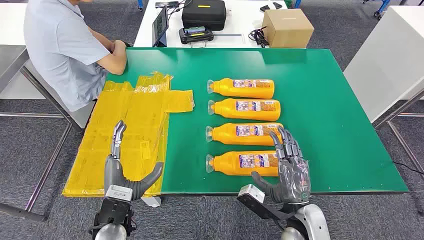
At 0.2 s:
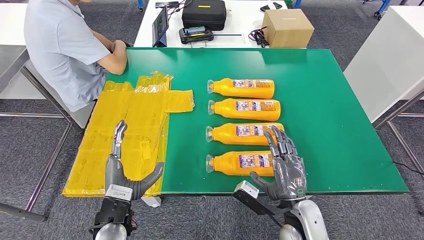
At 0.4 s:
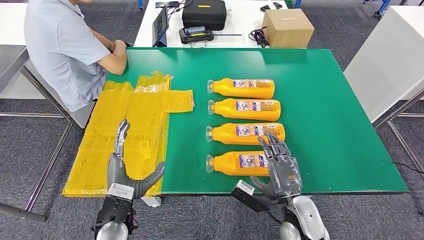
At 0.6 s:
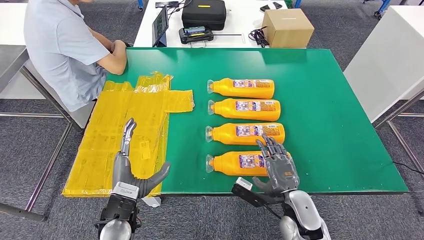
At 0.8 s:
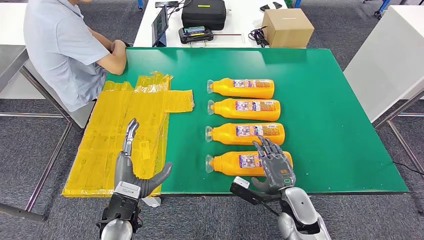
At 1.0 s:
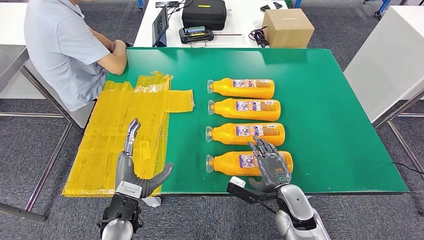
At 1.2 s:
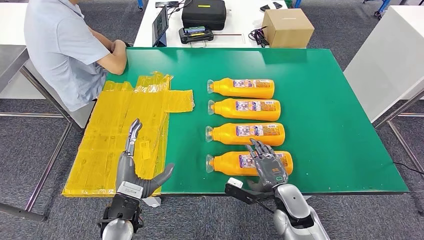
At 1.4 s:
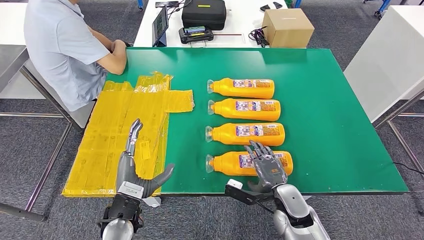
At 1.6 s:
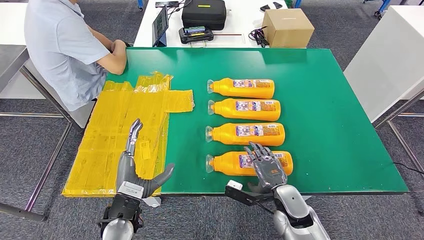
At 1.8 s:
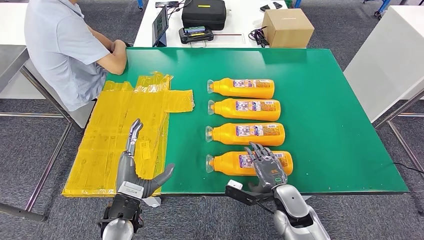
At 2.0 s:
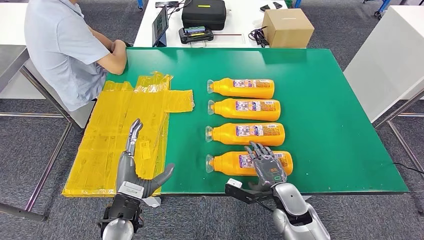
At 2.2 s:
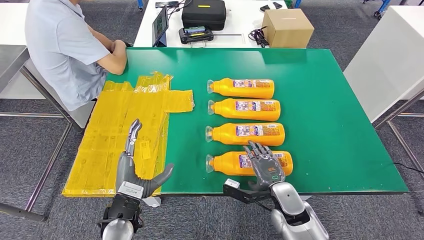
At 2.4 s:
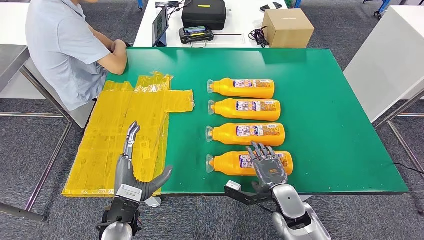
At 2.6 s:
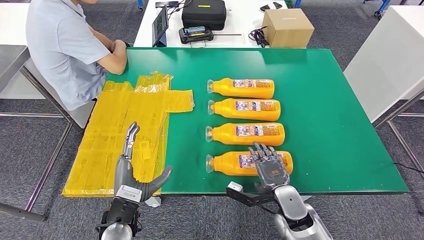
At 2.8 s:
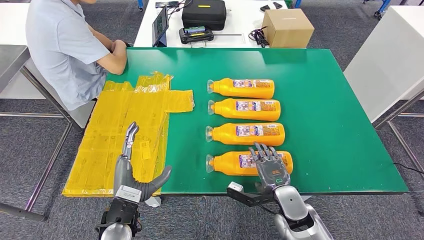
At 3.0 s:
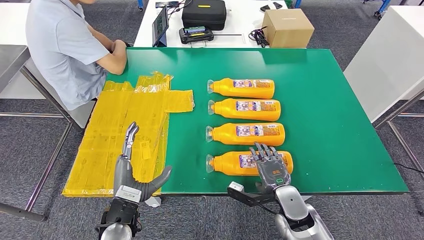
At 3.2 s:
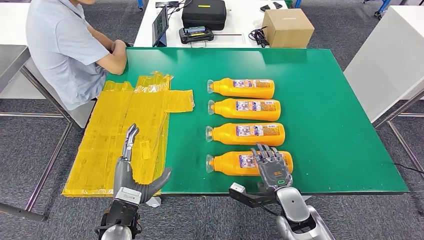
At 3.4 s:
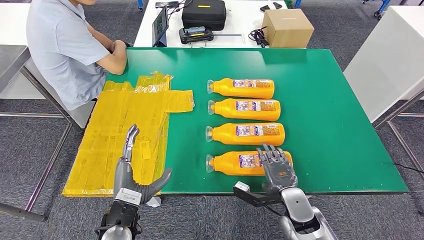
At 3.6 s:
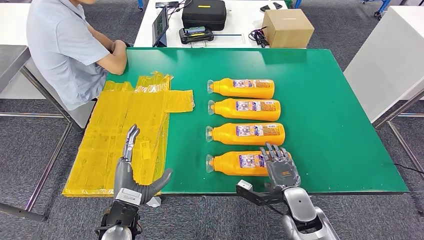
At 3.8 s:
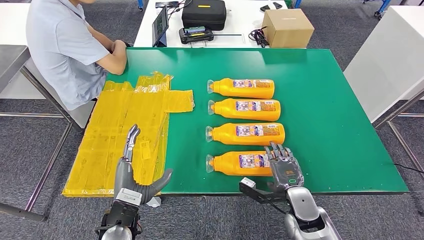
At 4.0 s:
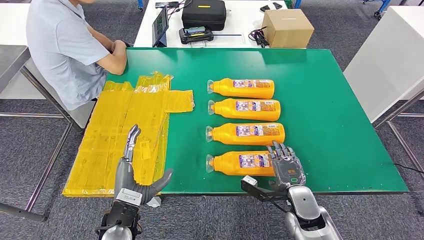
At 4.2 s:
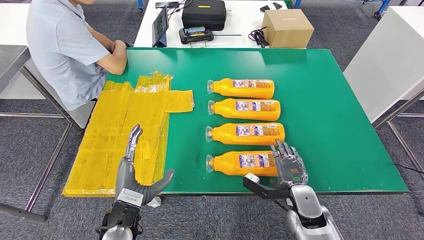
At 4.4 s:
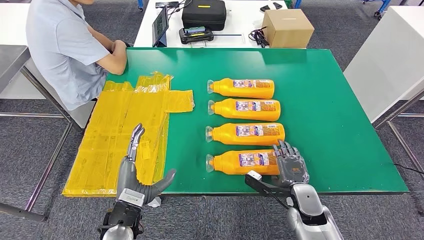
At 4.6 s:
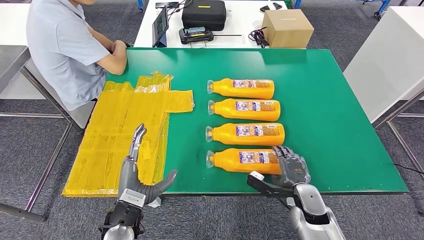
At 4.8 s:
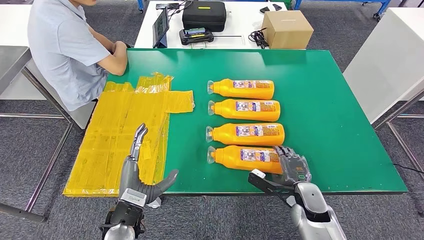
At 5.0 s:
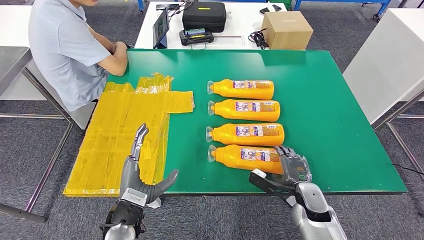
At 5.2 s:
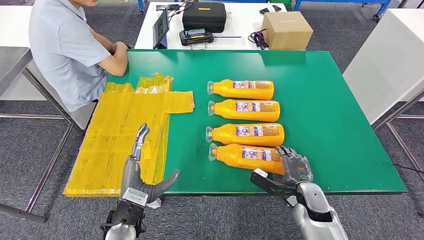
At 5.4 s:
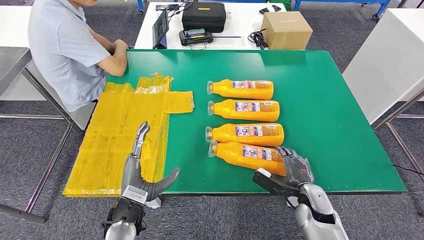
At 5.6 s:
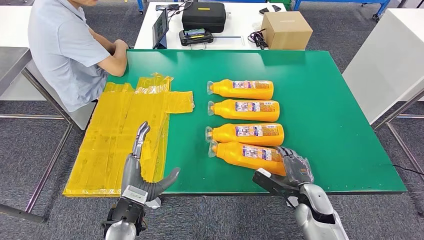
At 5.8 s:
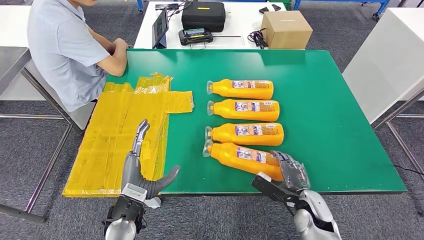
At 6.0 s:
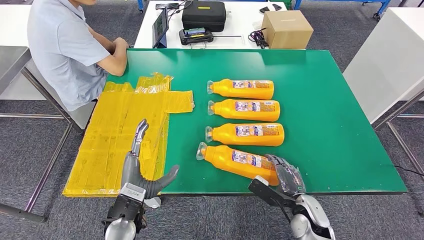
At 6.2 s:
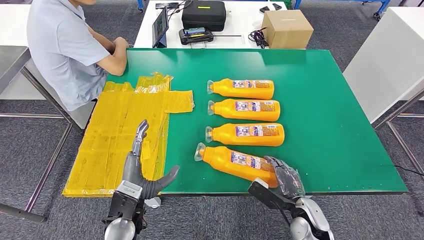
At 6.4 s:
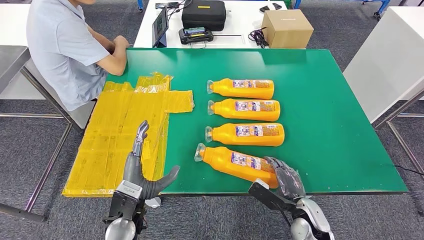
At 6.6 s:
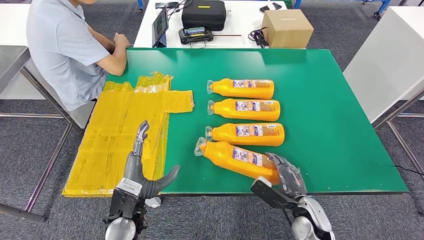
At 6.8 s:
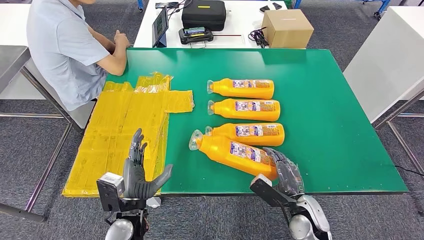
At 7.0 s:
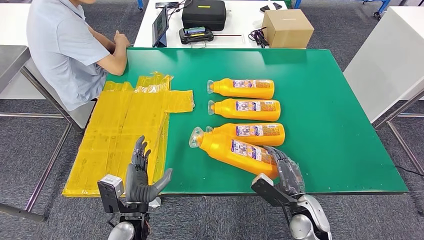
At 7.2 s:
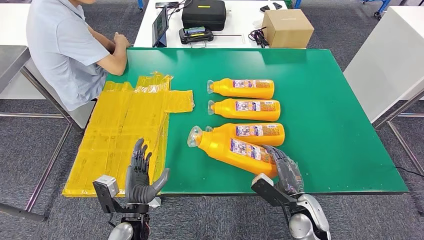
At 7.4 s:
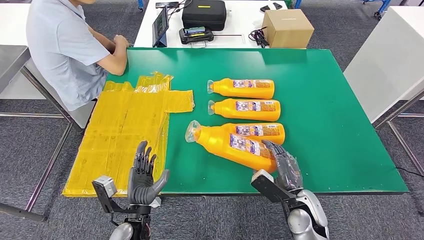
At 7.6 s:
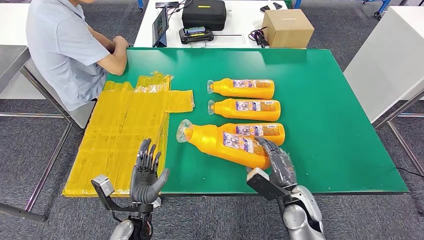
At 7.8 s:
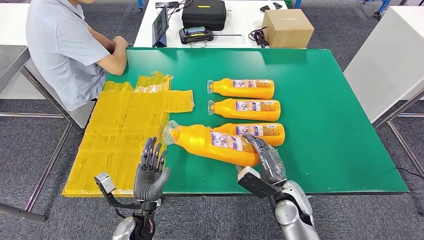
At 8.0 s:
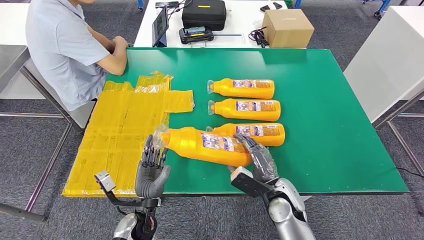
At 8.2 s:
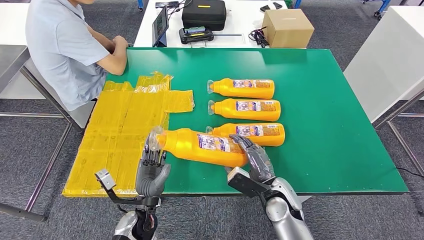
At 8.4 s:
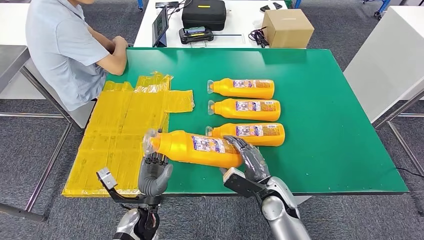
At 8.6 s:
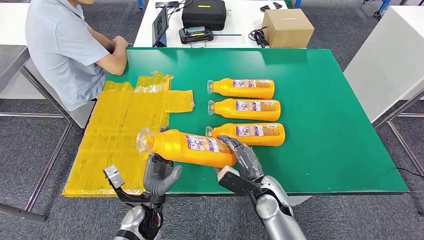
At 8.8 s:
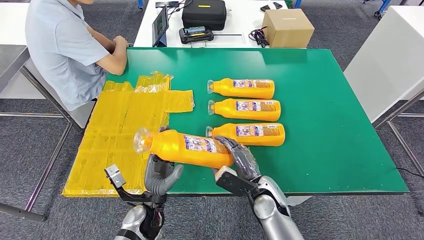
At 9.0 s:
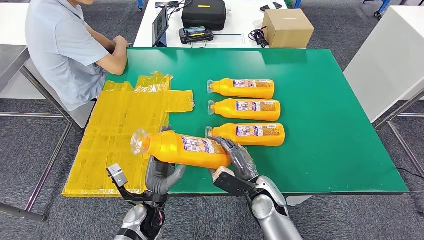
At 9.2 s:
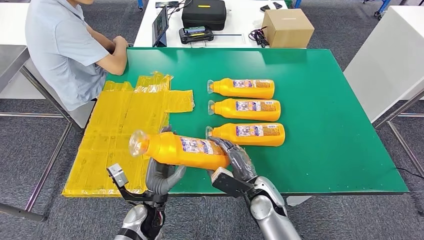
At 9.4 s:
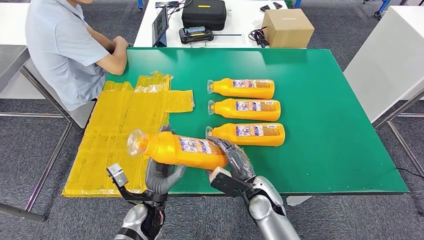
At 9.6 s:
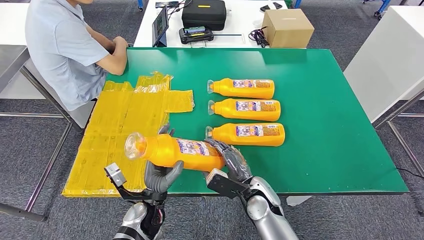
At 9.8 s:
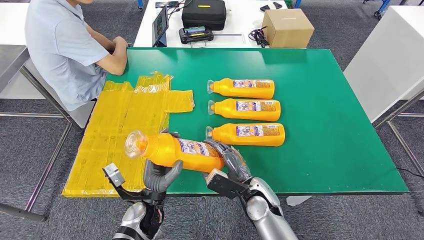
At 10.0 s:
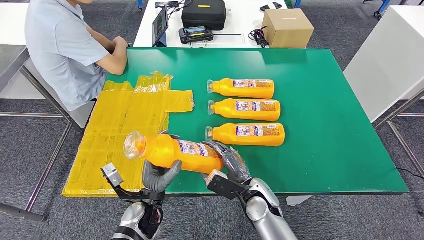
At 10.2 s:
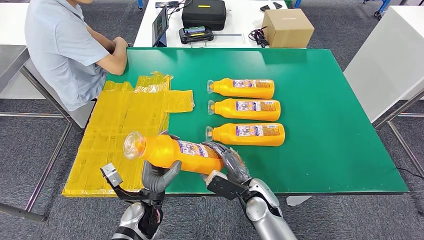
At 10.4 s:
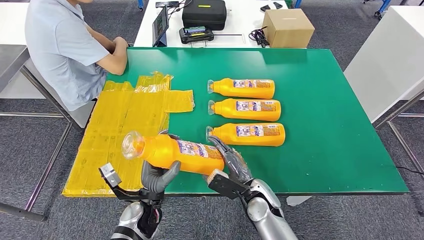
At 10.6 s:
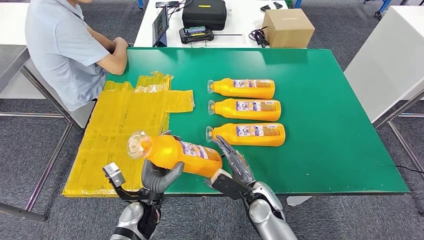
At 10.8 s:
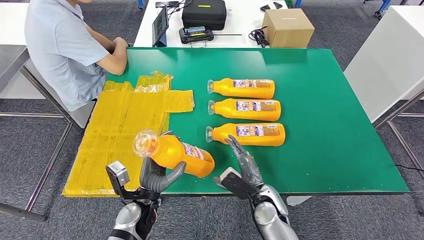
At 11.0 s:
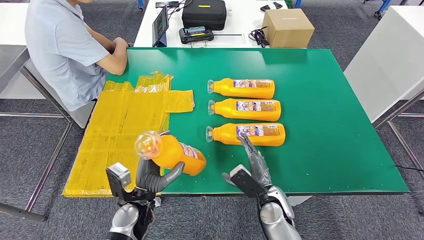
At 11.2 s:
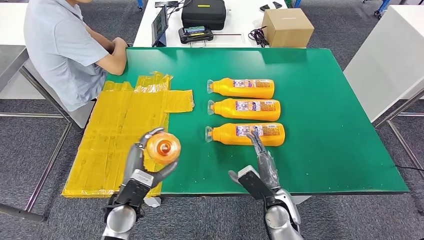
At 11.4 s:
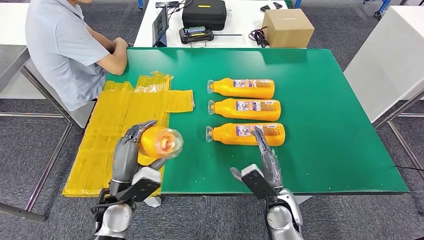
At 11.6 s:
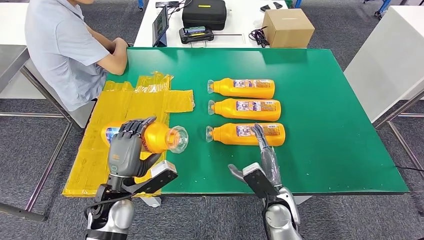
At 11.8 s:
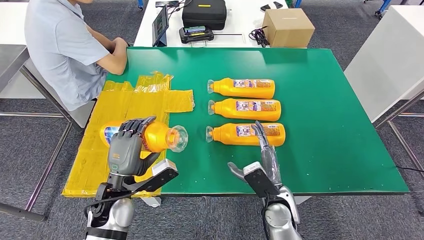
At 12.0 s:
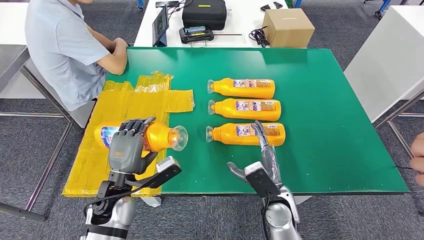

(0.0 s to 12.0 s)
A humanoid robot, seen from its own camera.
Step, 0.0 s - 8.4 s: Take the bottle from the table.
1.6 s - 4.4 s: The hands make only small movements.
6.0 s - 7.6 s: The left hand shifts about 5 cm downward. Meanwhile the right hand shifts by some 5 cm.
7.6 s - 9.0 s: The right hand moves to the left, roughly 10 cm.
9.0 s - 10.4 s: The hands stay close to where they were, moving slightly.
10.4 s - 12.0 s: The right hand shifts by roughly 5 cm; the left hand is displaced upward and to the left by about 10 cm.

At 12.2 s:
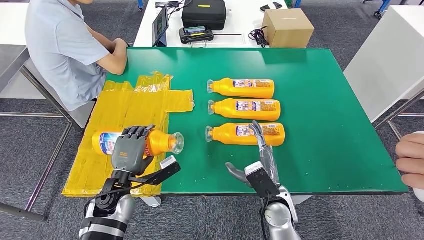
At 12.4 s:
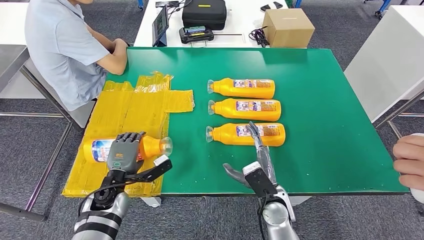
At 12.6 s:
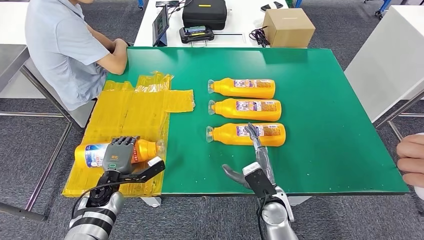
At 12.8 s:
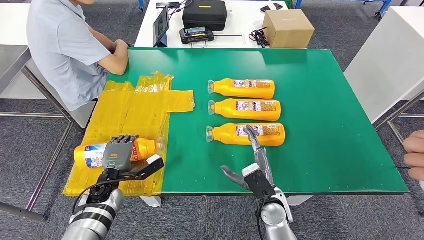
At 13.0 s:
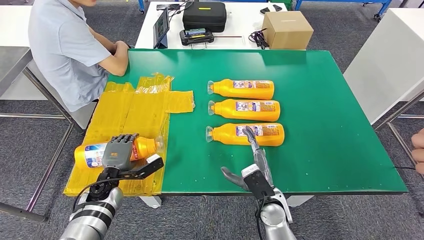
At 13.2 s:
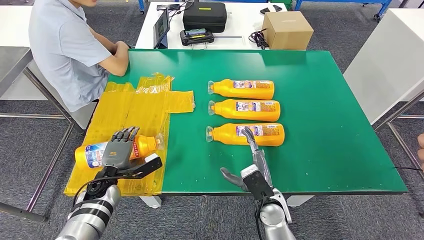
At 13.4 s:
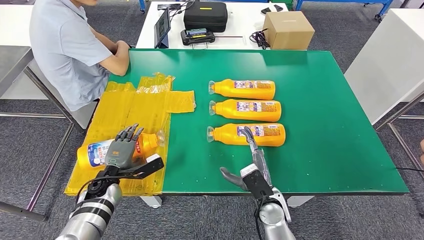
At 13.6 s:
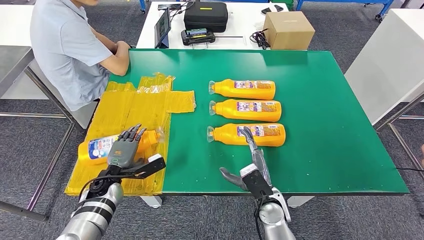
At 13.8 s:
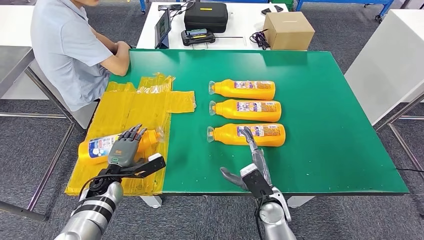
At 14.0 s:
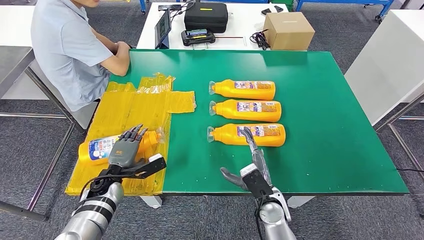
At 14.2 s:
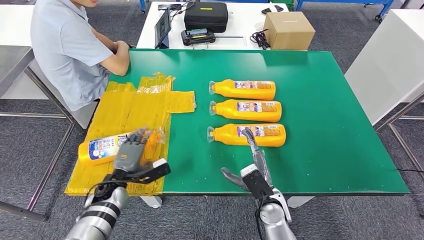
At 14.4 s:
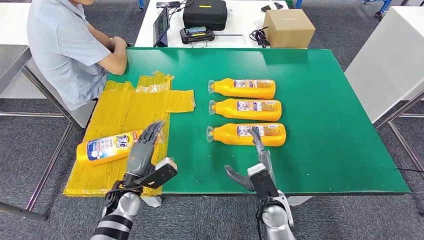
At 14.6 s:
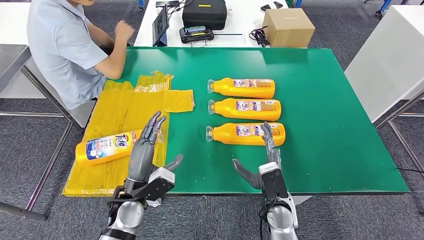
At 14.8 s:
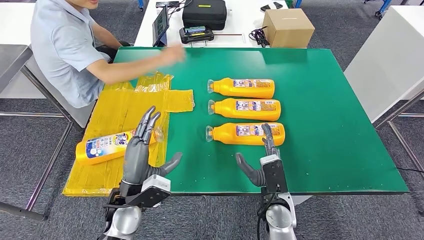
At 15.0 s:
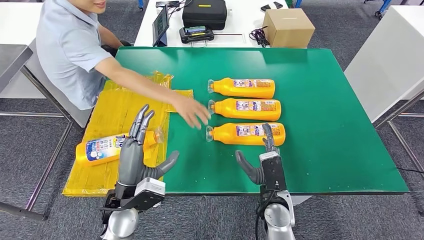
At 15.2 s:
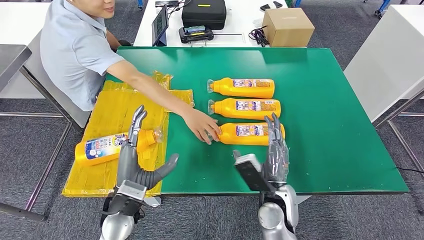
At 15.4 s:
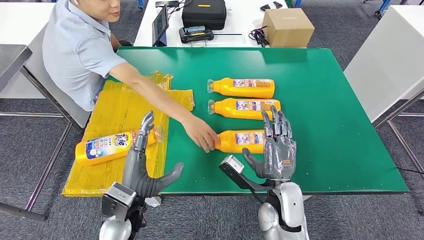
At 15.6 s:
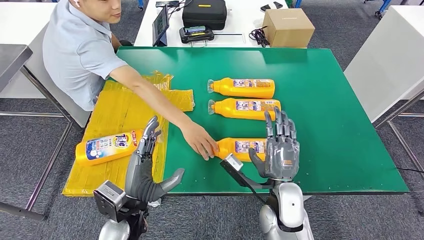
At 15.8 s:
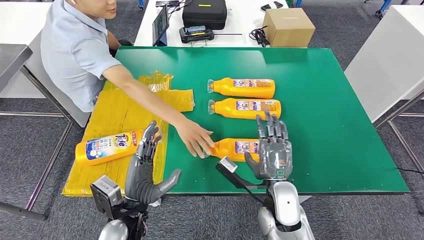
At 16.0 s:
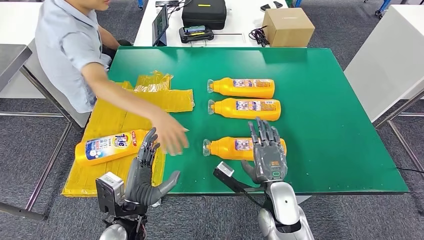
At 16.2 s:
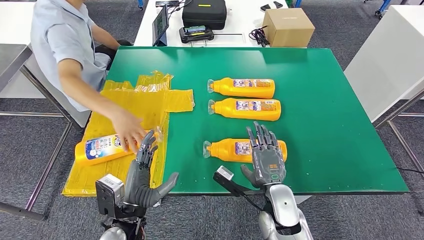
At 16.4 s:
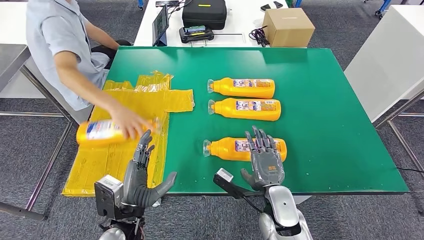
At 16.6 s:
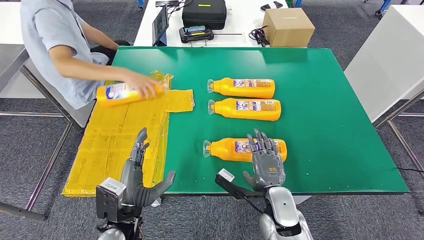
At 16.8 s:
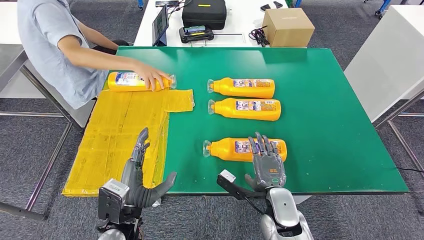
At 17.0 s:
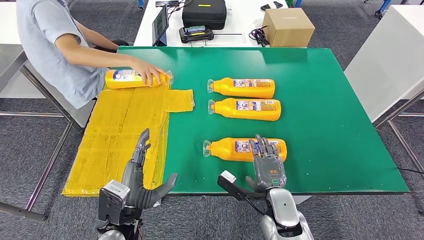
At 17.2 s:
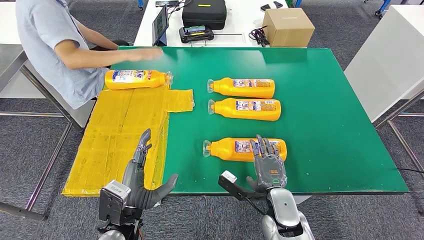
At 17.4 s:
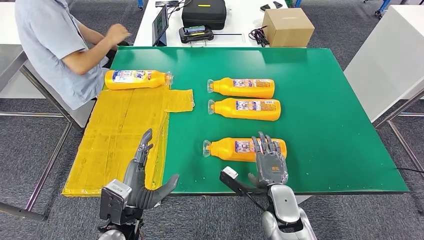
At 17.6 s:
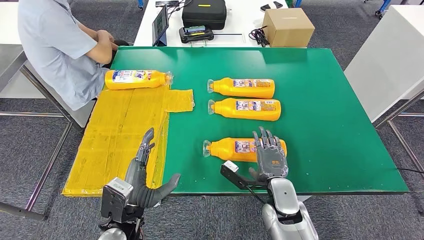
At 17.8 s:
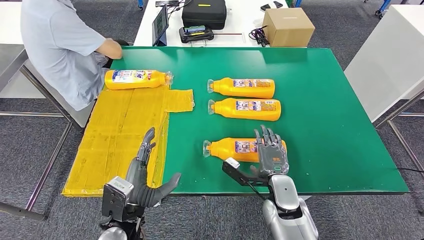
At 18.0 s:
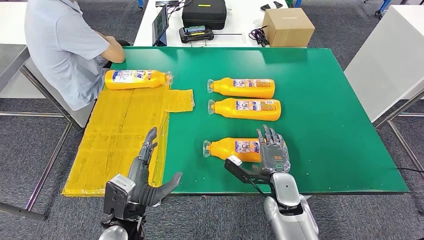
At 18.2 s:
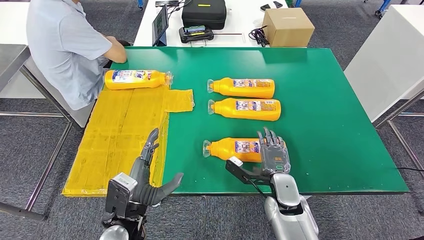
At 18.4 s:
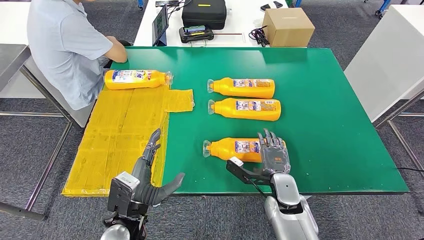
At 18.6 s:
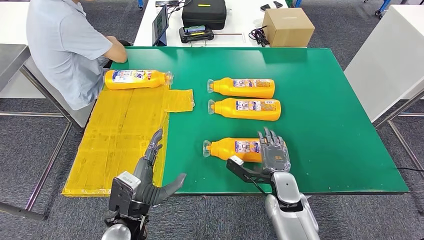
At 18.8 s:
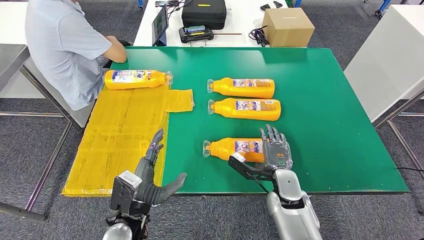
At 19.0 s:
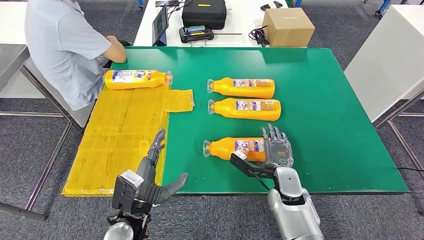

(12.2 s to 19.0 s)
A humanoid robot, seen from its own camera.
15.0 s - 16.2 s: The left hand shifts by roughly 5 cm.
16.2 s - 17.6 s: There are only small adjustments of the hands.
17.6 s - 19.0 s: The right hand shifts by about 5 cm.
